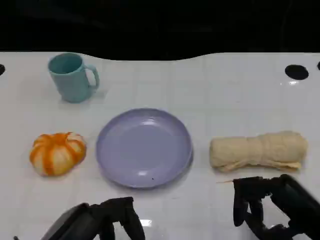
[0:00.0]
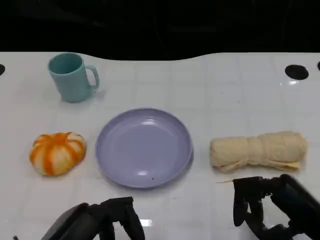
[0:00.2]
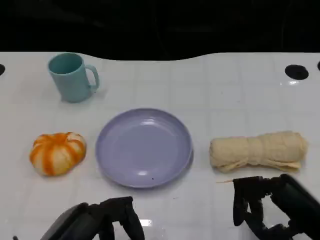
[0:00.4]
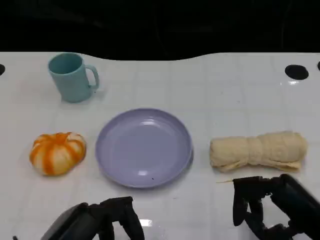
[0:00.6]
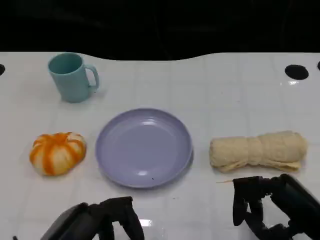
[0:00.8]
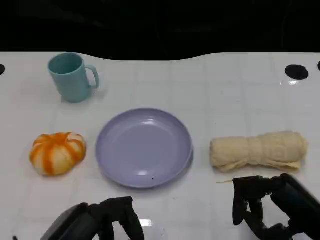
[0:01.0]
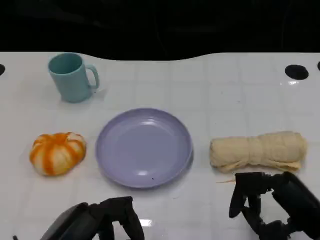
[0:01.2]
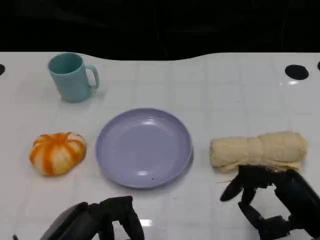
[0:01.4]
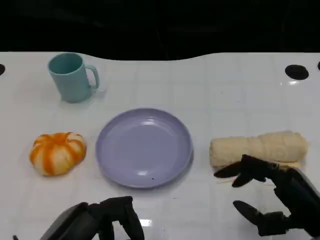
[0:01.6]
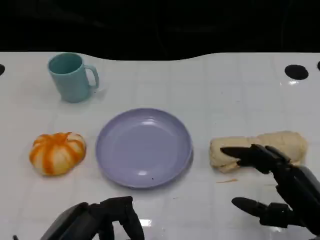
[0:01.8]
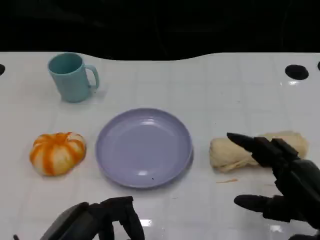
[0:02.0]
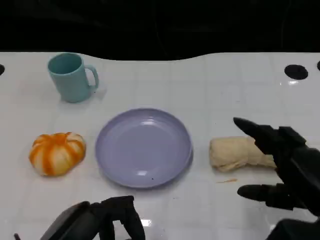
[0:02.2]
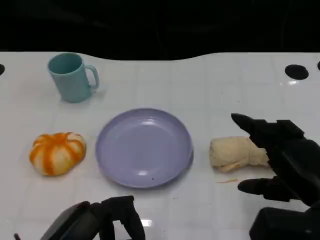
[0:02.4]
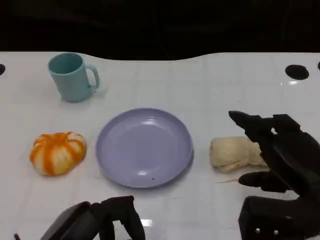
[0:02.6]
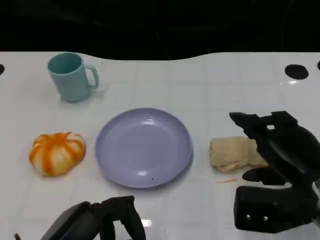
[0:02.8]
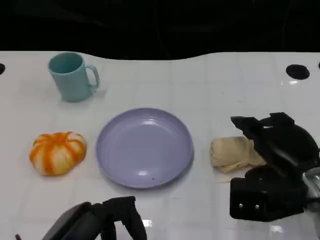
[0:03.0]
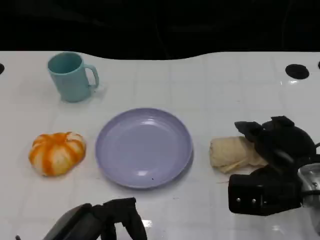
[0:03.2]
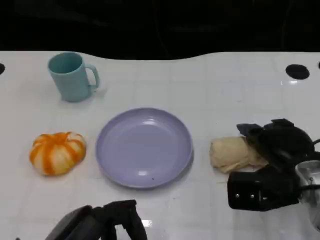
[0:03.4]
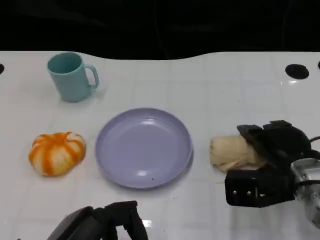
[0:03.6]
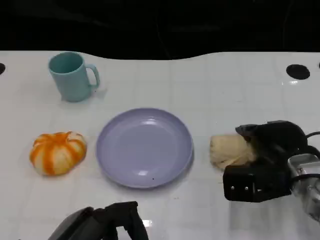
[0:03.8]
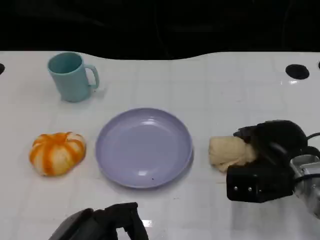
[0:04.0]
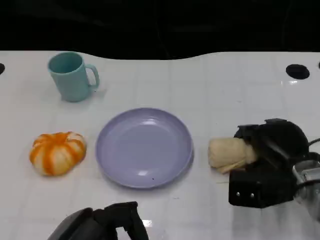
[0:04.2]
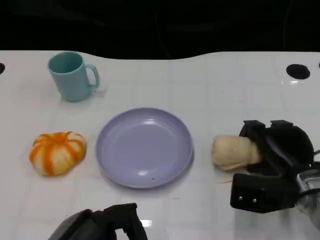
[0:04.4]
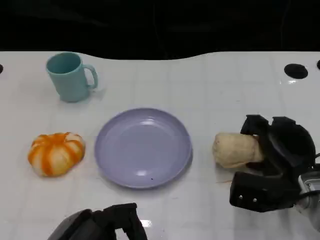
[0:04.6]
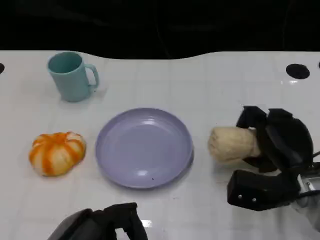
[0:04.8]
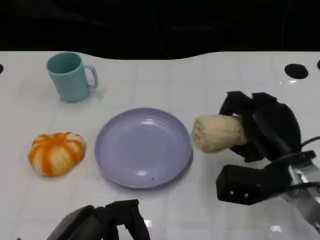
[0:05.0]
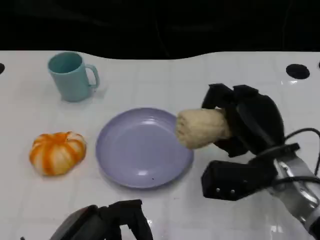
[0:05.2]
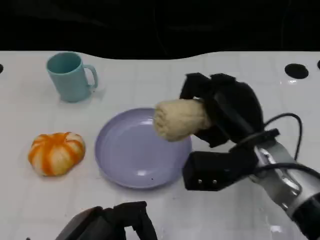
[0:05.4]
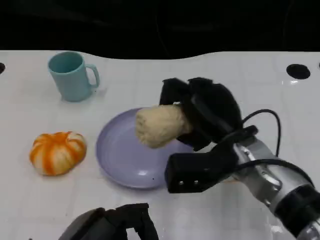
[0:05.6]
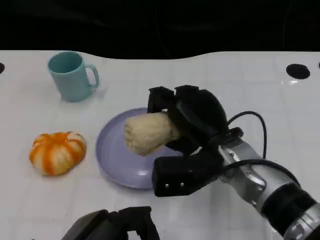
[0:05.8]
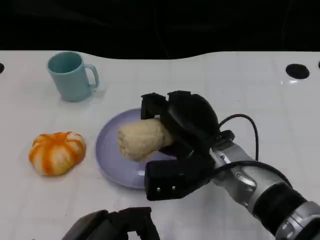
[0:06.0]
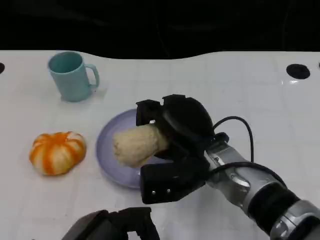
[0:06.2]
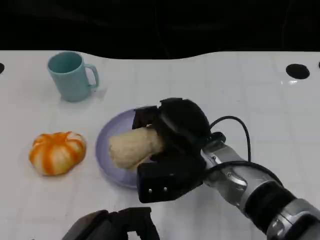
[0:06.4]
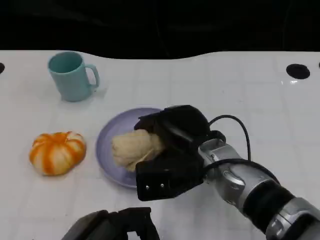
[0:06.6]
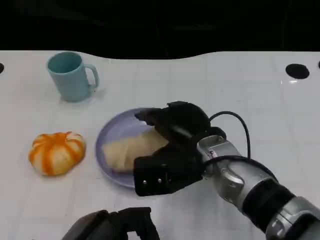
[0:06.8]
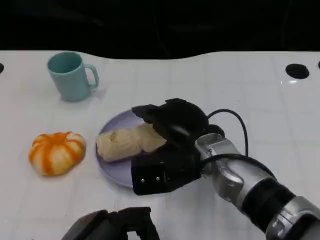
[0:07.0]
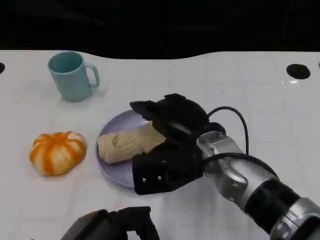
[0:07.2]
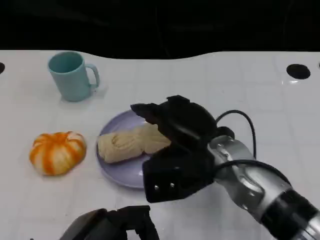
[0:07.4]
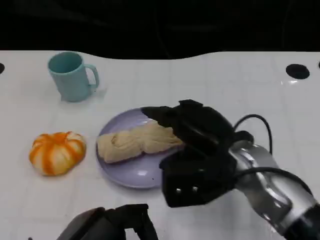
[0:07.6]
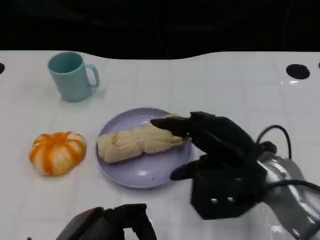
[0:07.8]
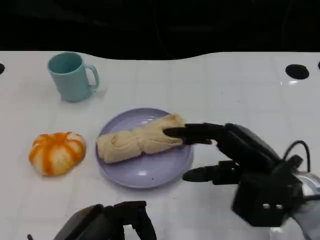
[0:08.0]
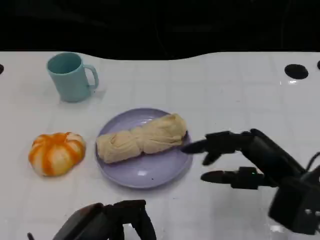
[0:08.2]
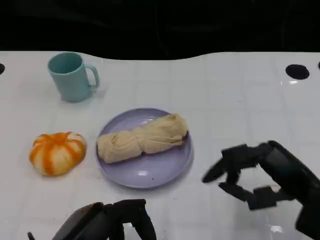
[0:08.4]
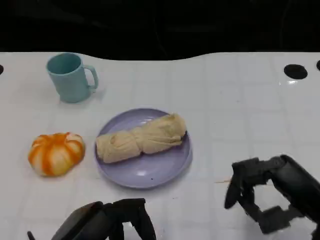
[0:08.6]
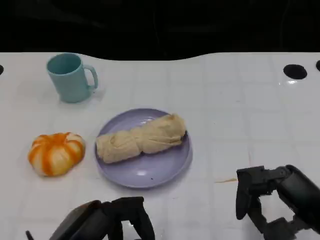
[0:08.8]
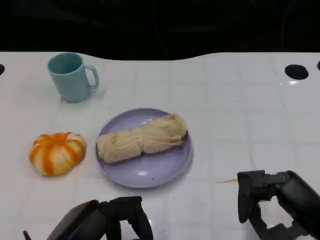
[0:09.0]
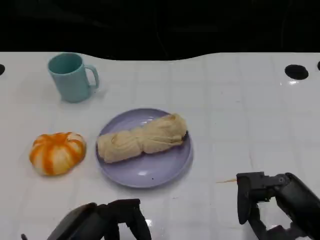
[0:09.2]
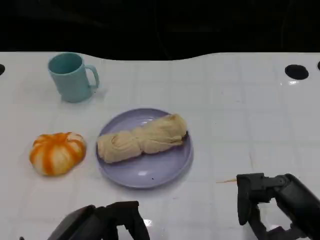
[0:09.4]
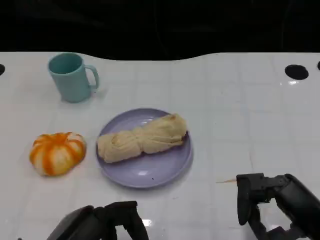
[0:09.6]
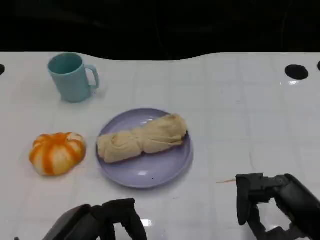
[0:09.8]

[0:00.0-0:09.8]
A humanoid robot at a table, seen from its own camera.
Task of the whole recording: Grasp the towel on the left side of the plate with the left hand and place it into the plate.
0:00.0 to 0:01.4: The hands stay close to where they were, moving slightly.
0:01.4 to 0:02.8: The right hand is displaced forward by roughly 5 cm.
0:02.8 to 0:04.2: The right hand heads downward and forward, covering roughly 10 cm.
0:04.2 to 0:05.6: The right hand moves to the left and upward, some 10 cm.
0:07.0 to 0:08.4: The right hand heads to the right and backward, covering about 20 cm.
0:08.4 to 0:09.8: The hands move only a little.
